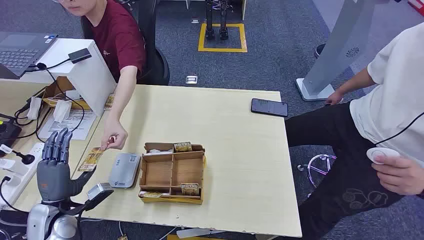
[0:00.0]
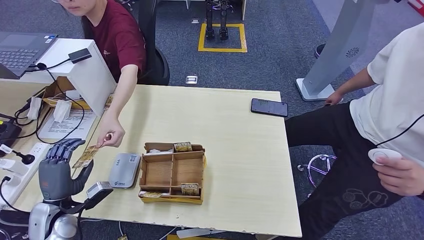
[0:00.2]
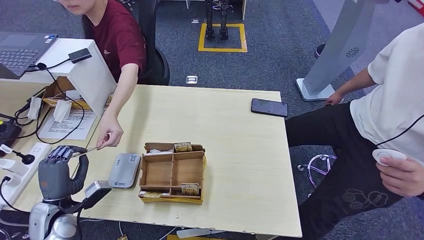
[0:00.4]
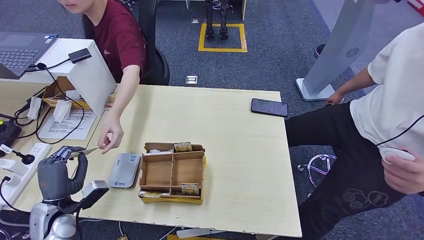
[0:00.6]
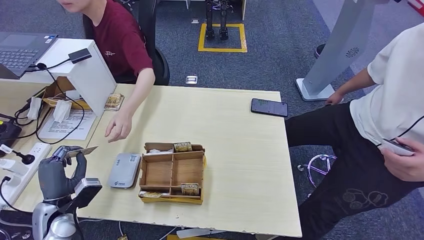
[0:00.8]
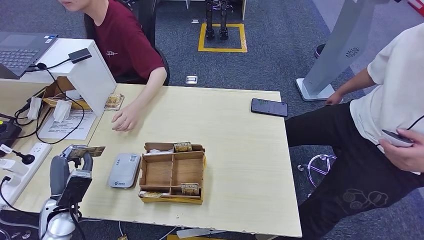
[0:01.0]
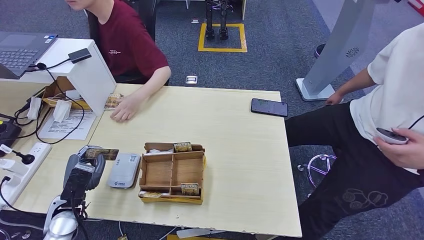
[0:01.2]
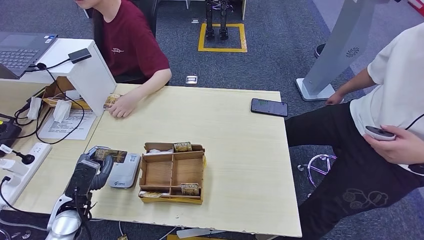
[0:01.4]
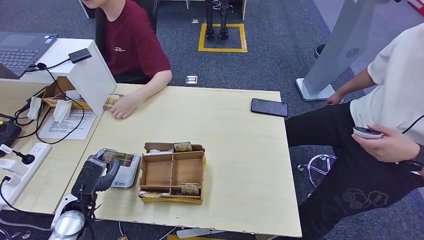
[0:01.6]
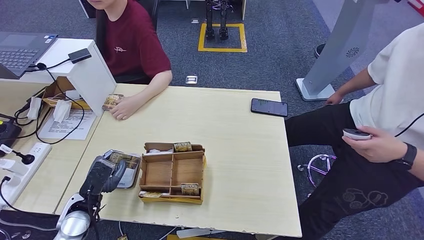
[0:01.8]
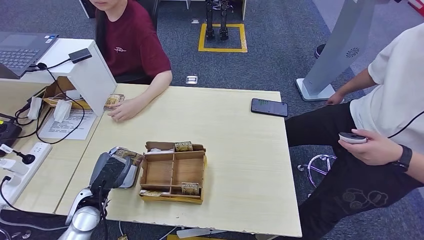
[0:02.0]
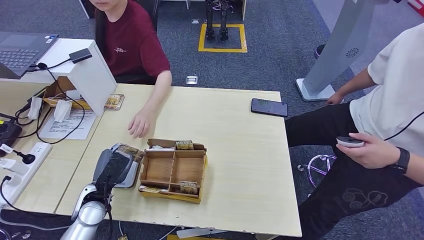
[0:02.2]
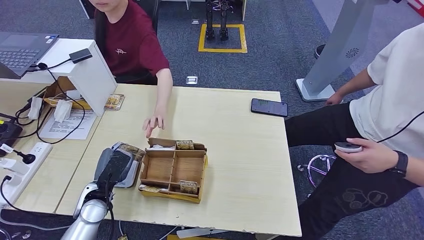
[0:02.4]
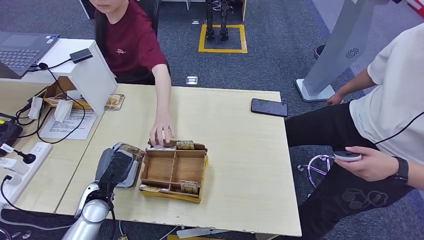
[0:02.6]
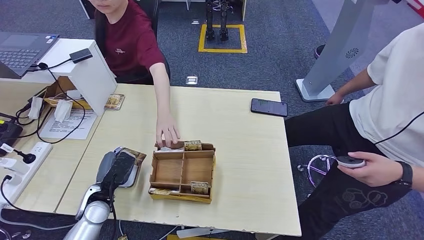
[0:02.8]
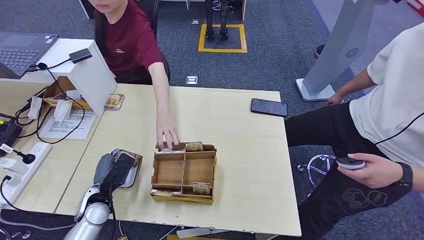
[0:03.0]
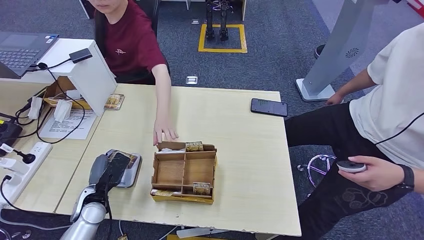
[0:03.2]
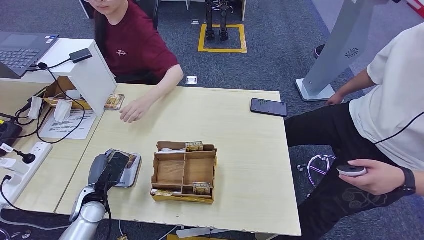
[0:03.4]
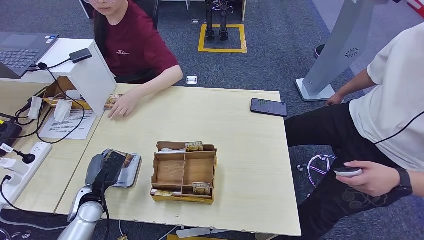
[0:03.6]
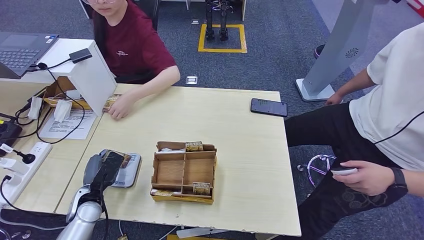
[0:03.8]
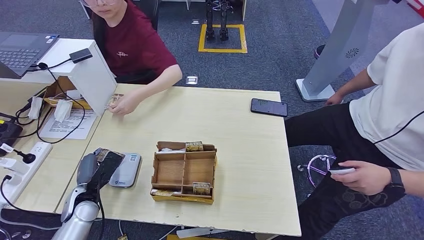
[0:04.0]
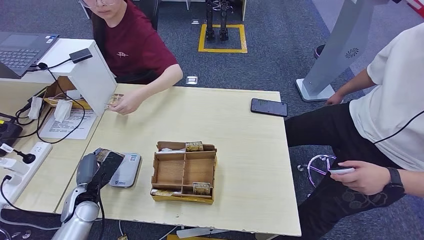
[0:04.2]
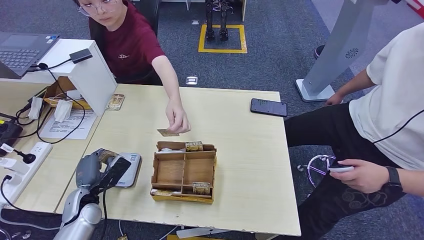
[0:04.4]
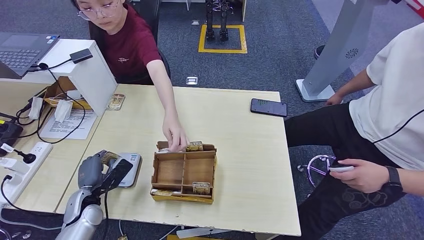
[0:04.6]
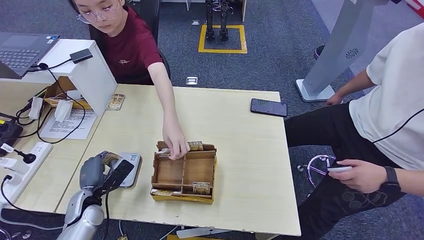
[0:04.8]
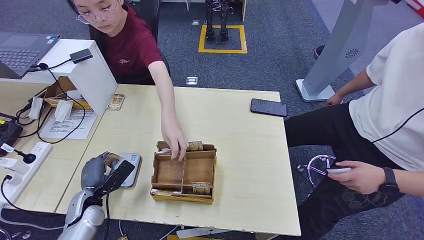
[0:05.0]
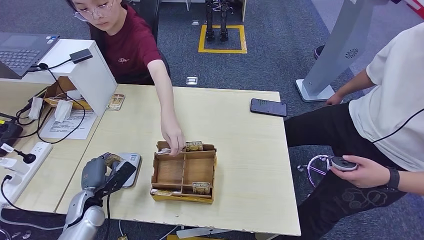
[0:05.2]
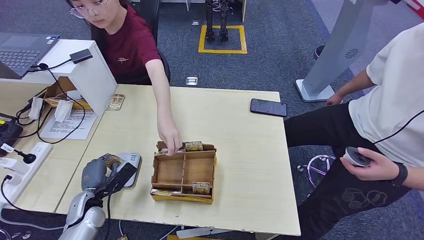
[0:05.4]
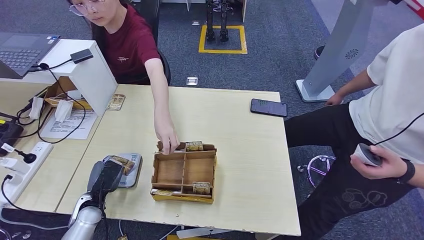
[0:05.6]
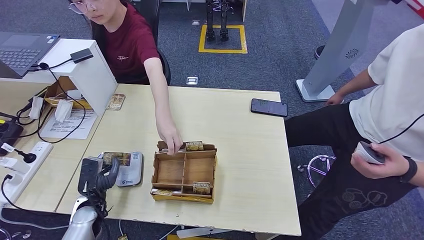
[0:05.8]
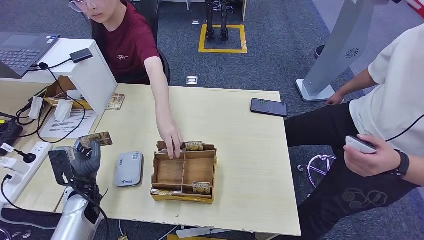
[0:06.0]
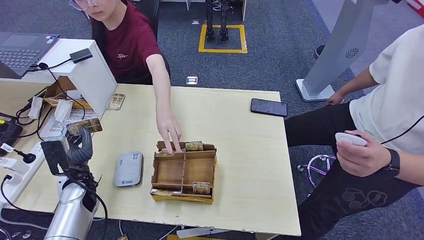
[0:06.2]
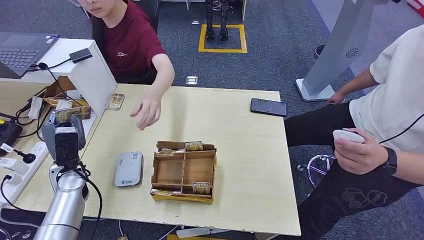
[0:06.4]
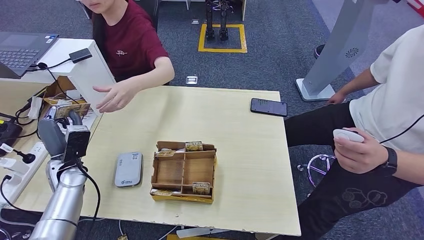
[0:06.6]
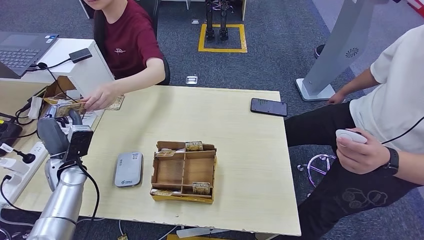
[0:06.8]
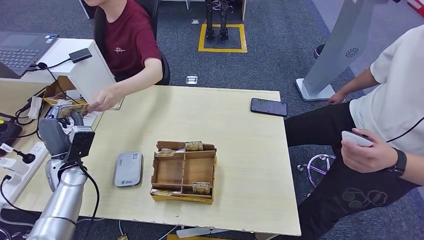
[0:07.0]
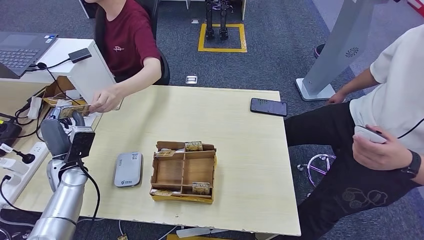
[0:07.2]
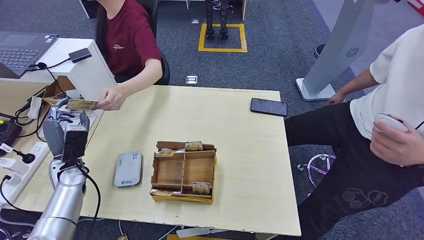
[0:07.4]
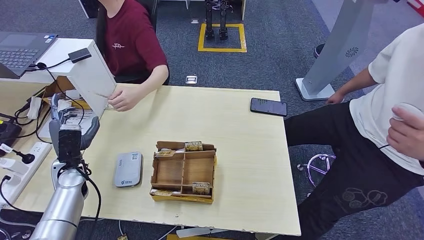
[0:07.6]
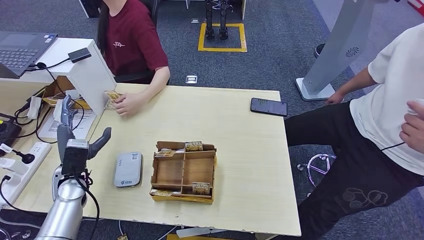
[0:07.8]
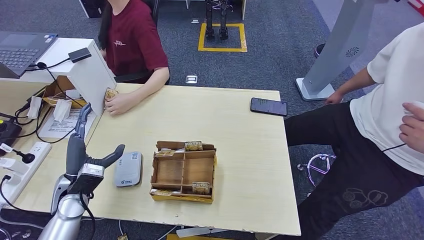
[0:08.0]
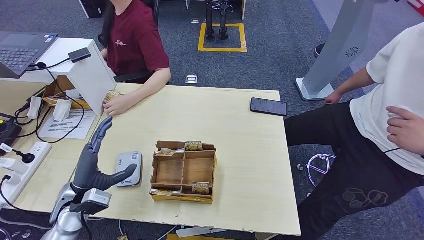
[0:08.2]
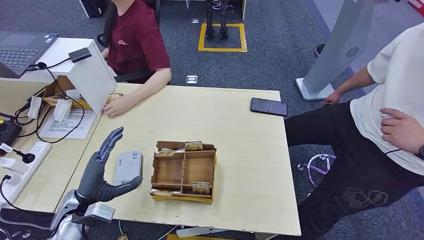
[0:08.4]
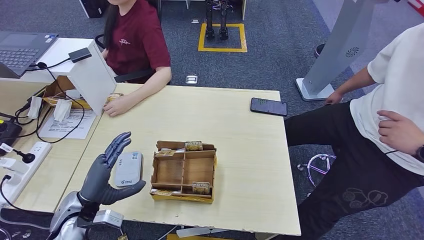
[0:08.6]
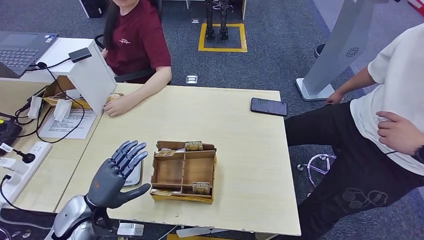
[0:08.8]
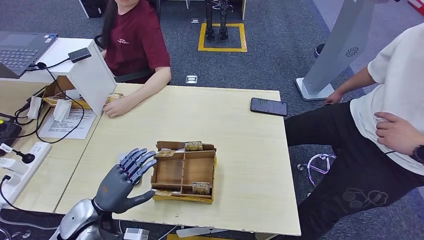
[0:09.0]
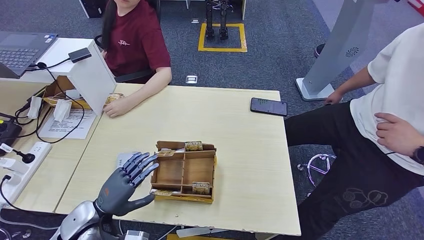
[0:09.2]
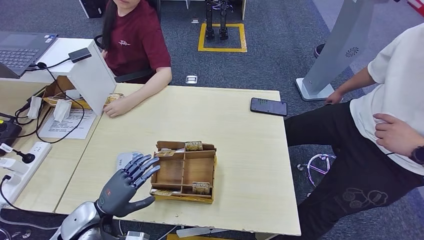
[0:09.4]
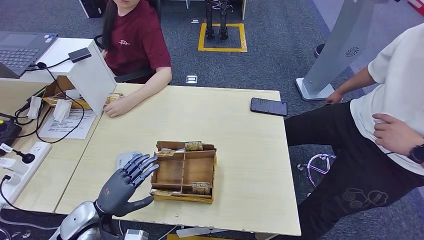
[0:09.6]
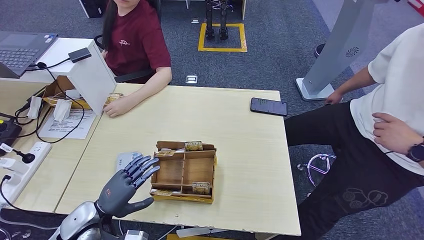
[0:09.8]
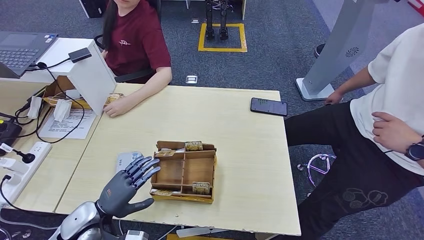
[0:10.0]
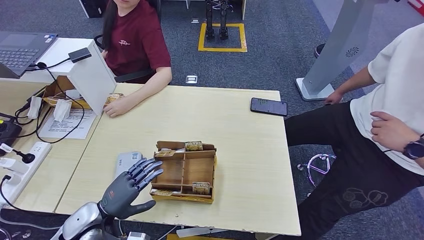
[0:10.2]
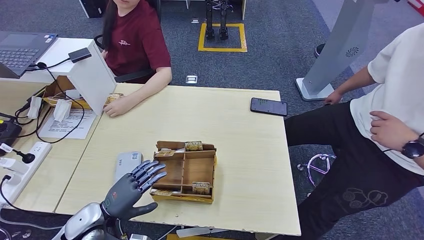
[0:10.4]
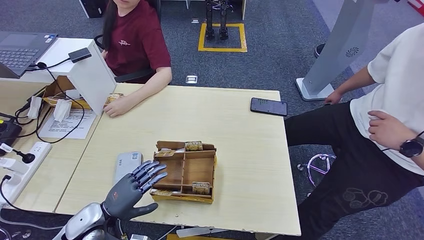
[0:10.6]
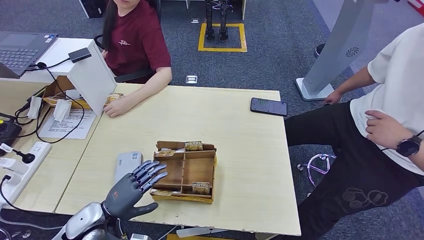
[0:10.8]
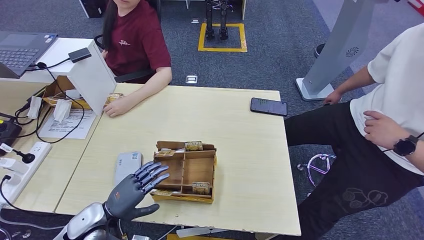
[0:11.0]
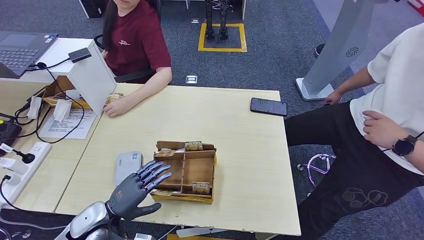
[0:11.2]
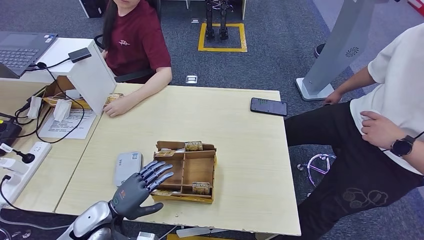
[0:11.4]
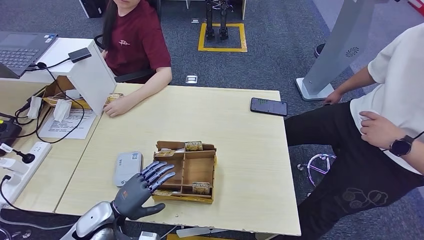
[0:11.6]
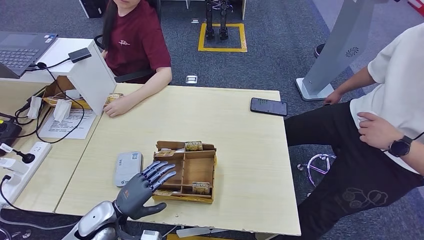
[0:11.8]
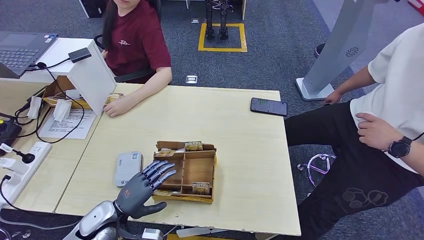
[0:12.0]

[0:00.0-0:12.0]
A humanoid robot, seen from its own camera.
Step, 0:00.0 to 0:00.4: Take the ID card from the person's hand.
Step, 0:00.6 to 0:05.4: Place the ID card on the card reader.
Step, 0:05.8 to 0:07.8: Hand the ID card to the person.
0:01.6 to 0:03.0: The hands stay close to where they were, moving slightly.
0:06.0 to 0:07.6: The left hand shifts some 5 cm upward and forward.
0:07.6 to 0:09.0: The left hand shifts approximately 15 cm backward and to the right.
0:09.0 to 0:12.0: The hands move only a little.

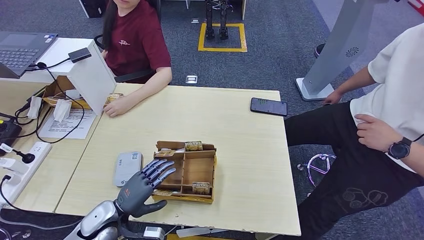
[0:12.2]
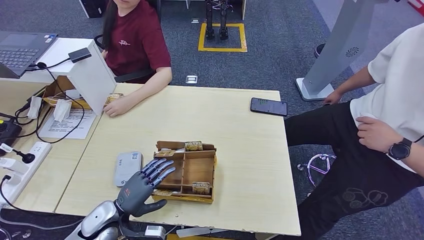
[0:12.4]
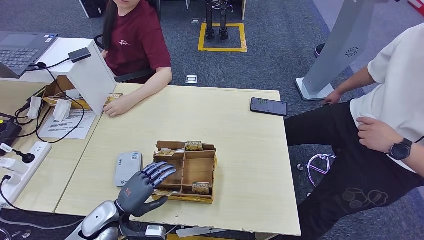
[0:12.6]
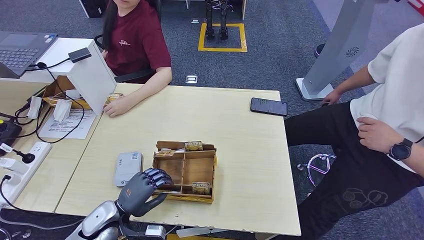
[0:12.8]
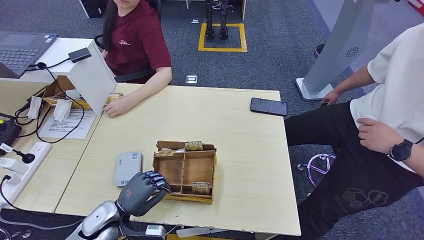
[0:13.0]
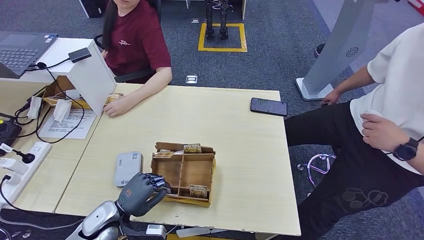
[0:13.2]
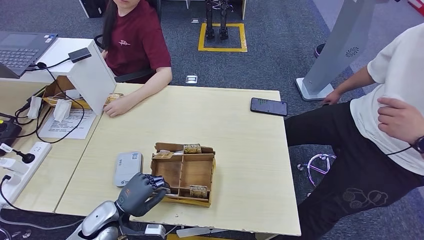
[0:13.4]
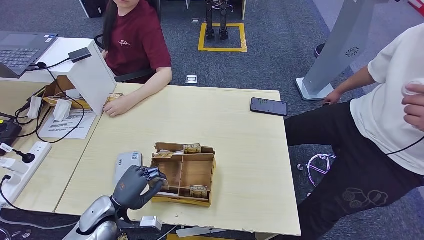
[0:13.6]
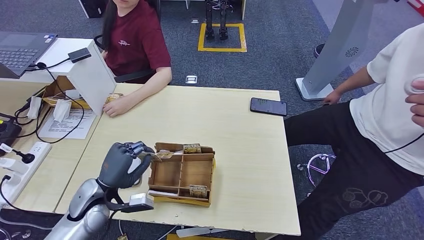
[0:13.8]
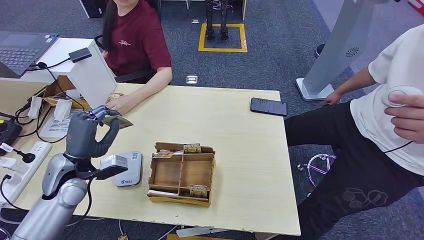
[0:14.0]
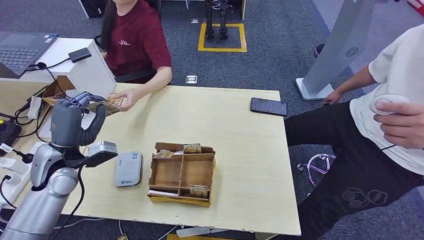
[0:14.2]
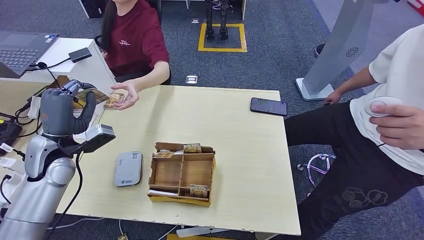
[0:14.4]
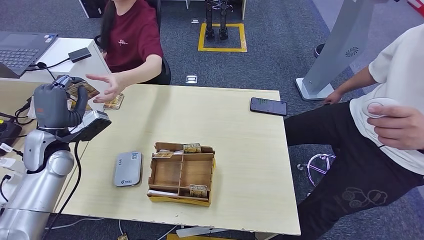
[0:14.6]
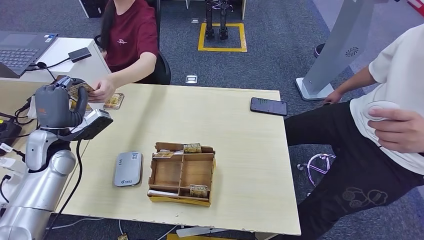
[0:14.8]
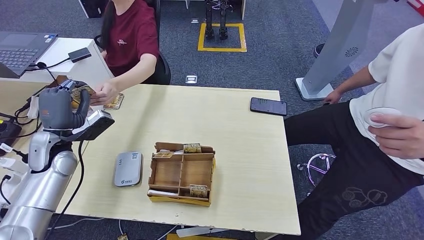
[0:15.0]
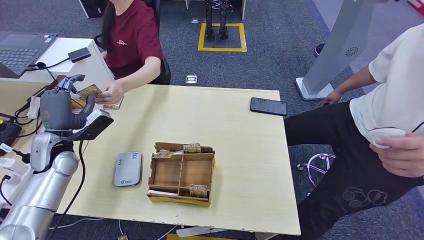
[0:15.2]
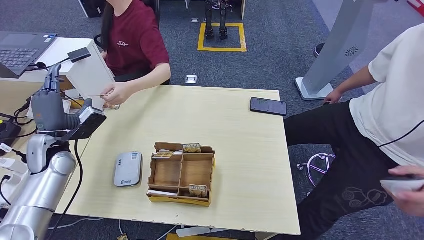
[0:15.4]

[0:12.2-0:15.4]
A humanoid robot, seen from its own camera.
Step, 0:14.0 to 0:15.4: Hand the room key to the person.
0:12.2 to 0:13.8: The left hand travels upward by roughly 5 cm.
0:13.8 to 0:15.4: The left hand goes about 15 cm to the left, forward and upward.

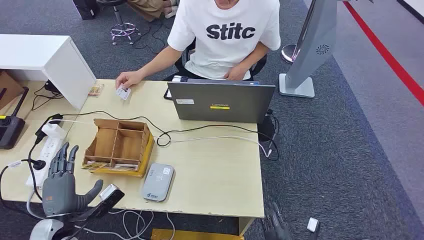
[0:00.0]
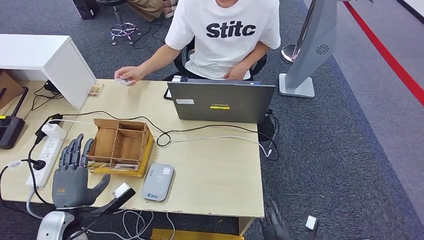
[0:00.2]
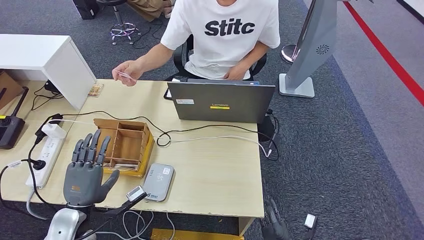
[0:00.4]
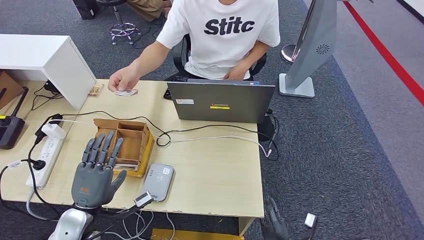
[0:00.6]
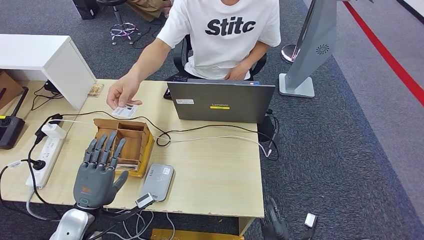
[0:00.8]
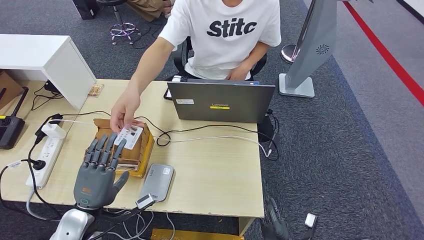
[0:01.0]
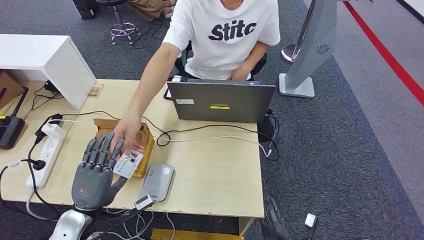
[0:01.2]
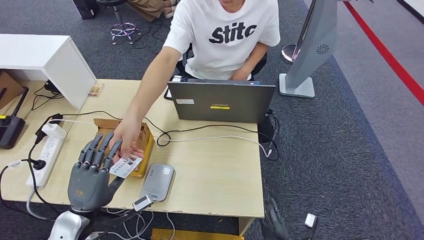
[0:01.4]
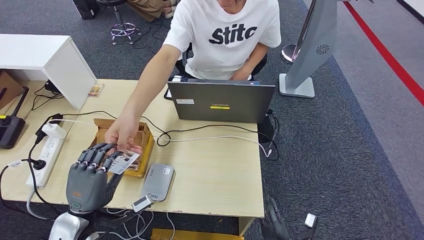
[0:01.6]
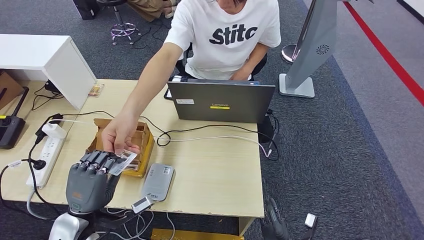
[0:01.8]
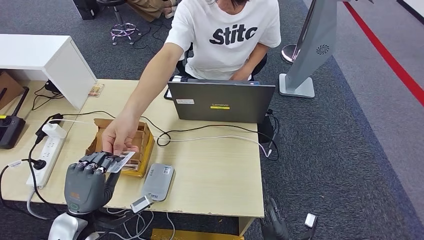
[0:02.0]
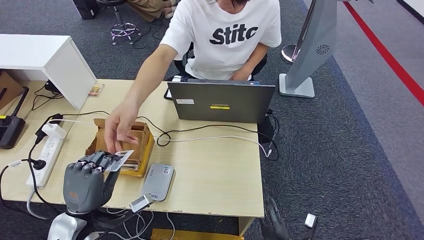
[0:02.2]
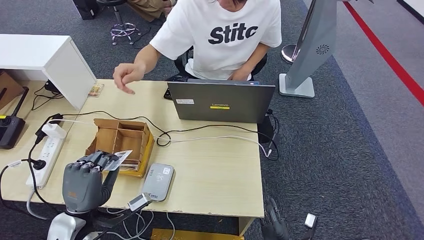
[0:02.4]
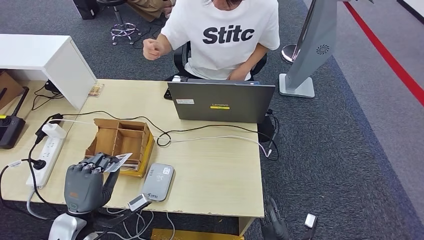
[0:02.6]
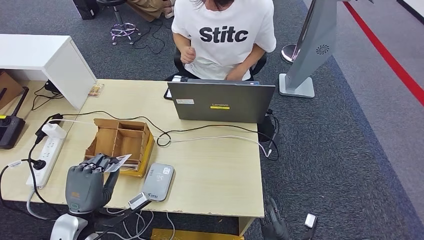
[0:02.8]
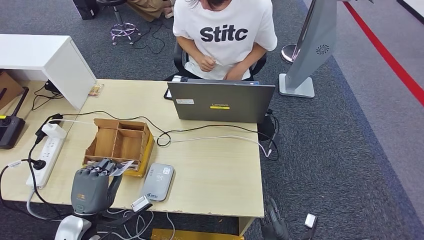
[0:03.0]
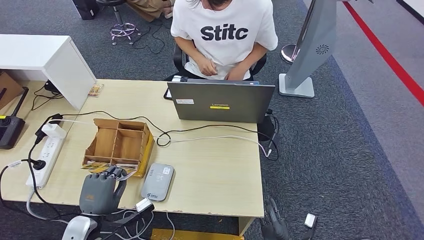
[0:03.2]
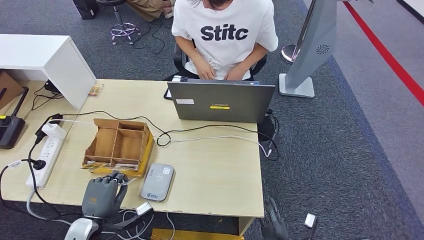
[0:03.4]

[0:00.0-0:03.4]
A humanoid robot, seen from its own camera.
Step, 0:00.0 to 0:02.4: Take the ID card from the person's hand.
0:01.6 to 0:03.4: The left hand travels downward by roughly 10 cm.
